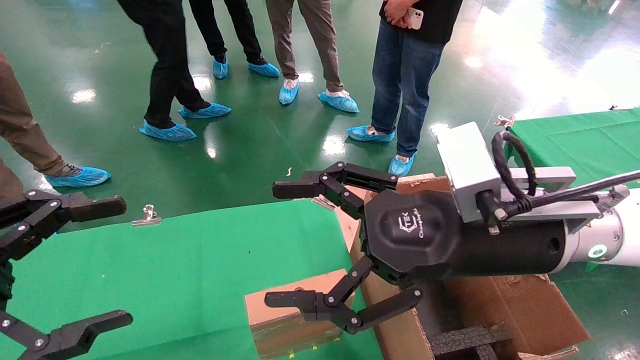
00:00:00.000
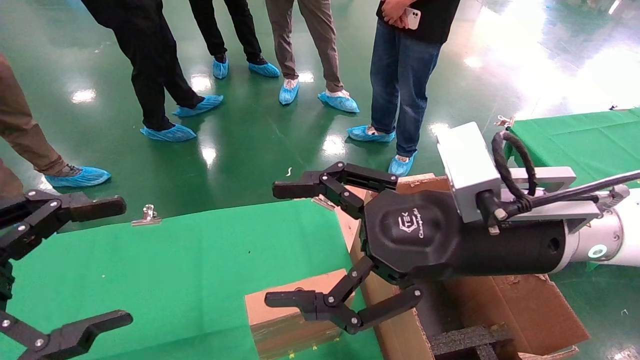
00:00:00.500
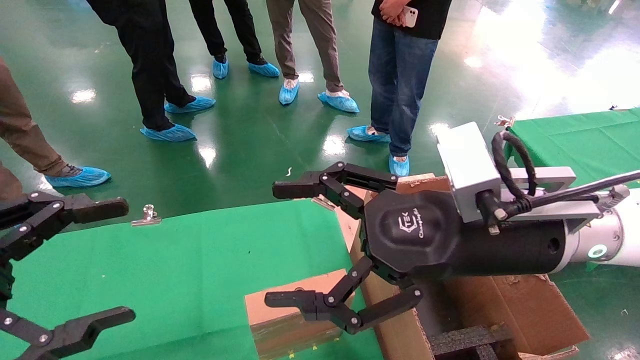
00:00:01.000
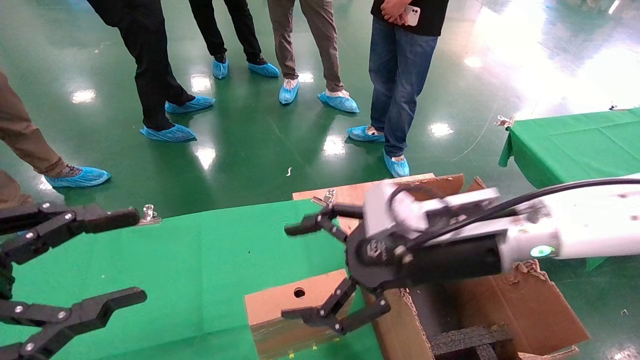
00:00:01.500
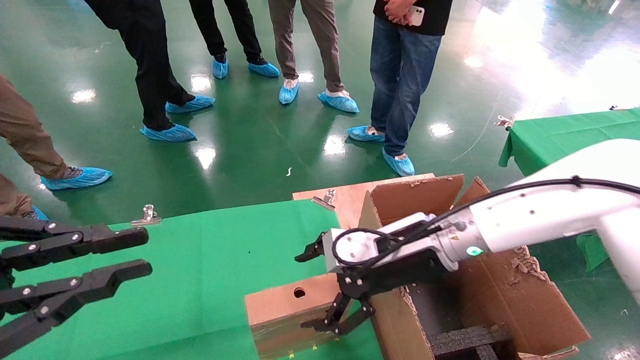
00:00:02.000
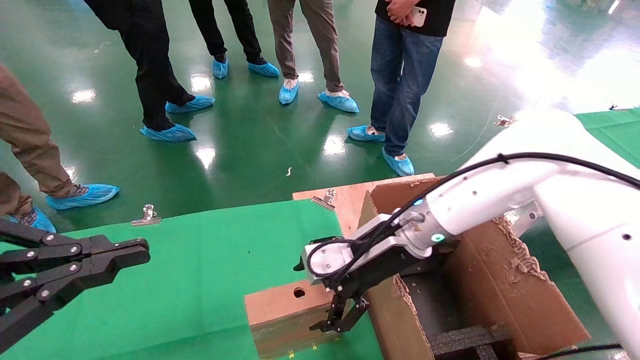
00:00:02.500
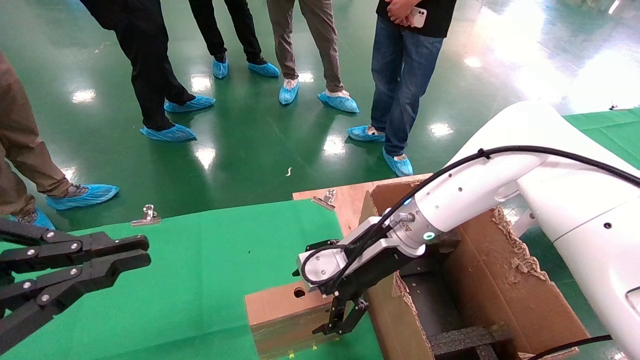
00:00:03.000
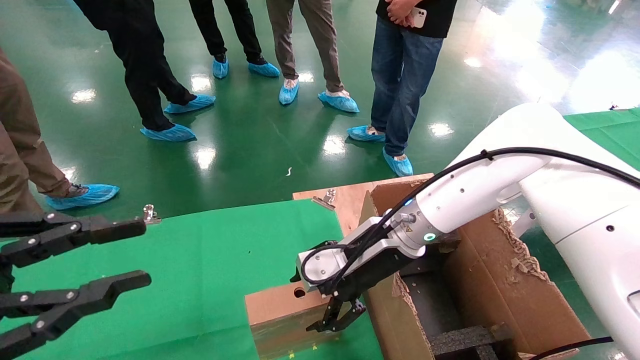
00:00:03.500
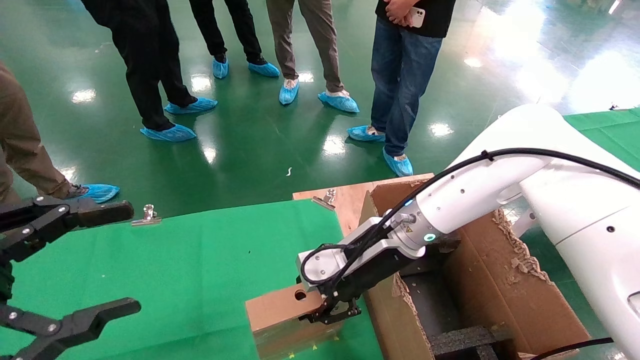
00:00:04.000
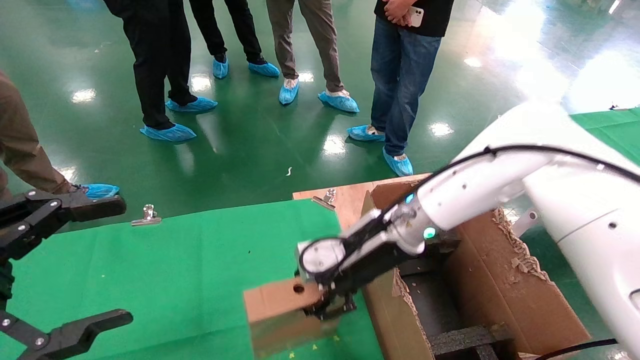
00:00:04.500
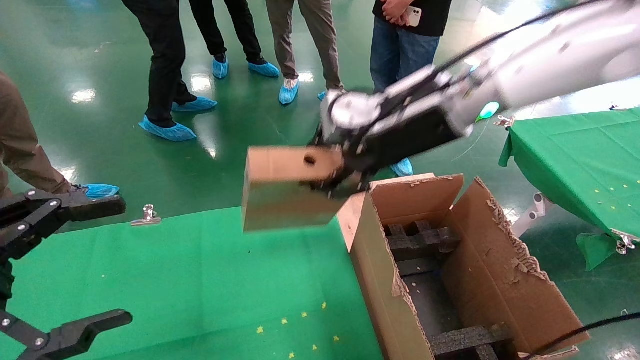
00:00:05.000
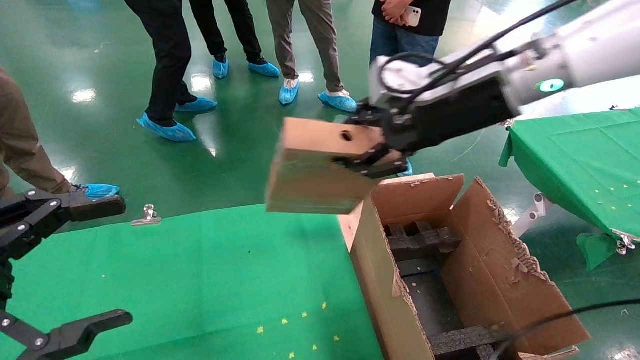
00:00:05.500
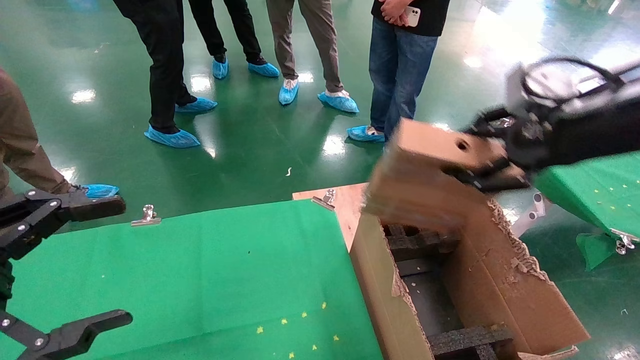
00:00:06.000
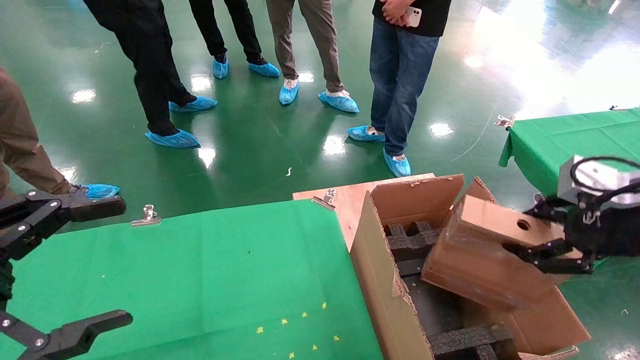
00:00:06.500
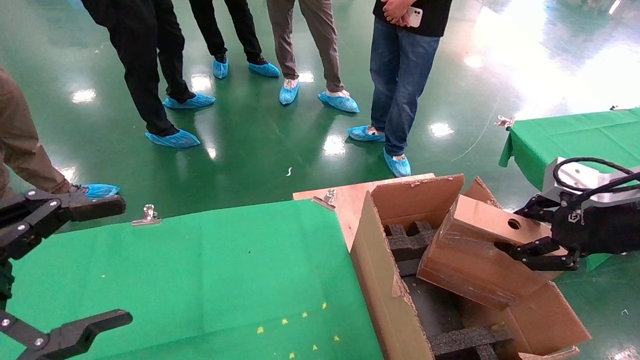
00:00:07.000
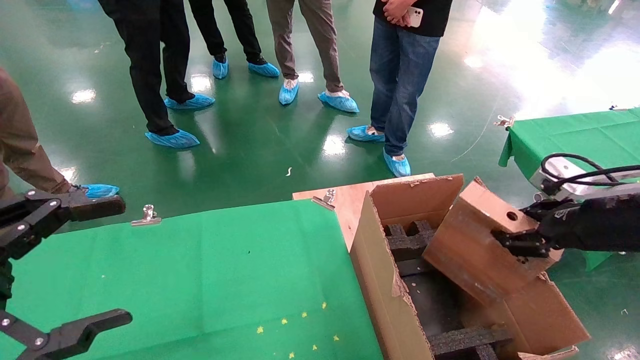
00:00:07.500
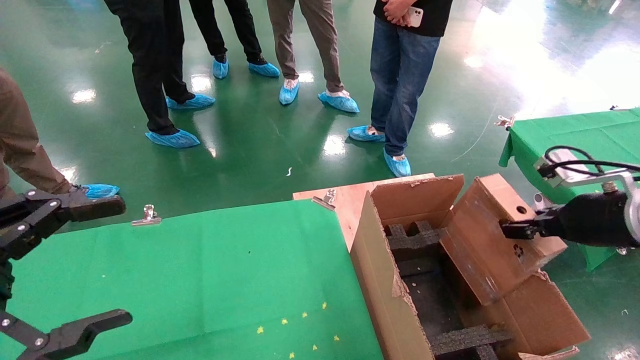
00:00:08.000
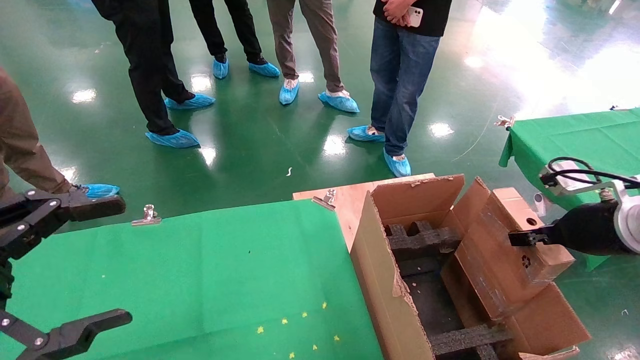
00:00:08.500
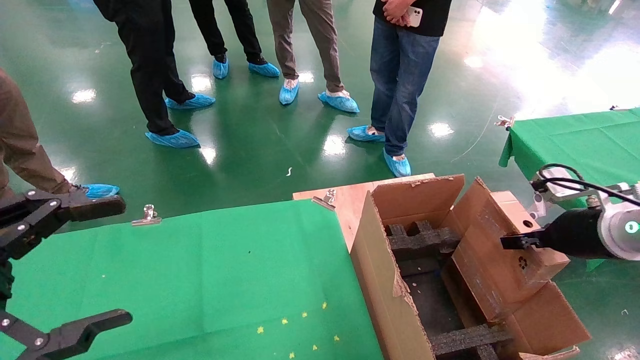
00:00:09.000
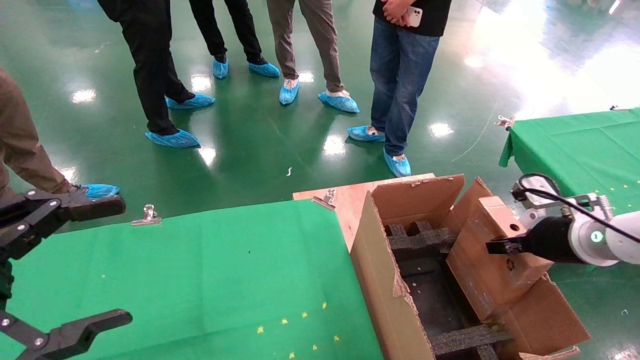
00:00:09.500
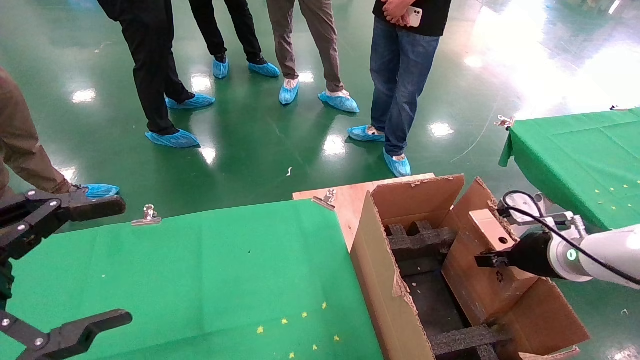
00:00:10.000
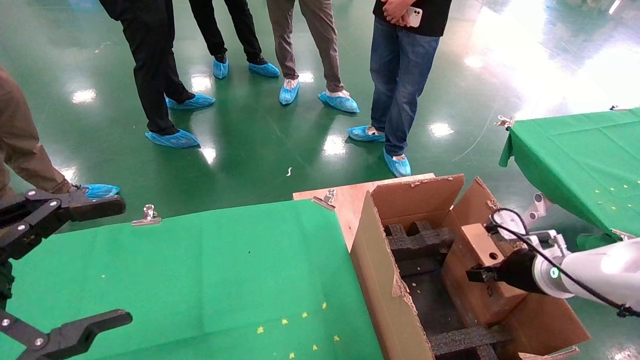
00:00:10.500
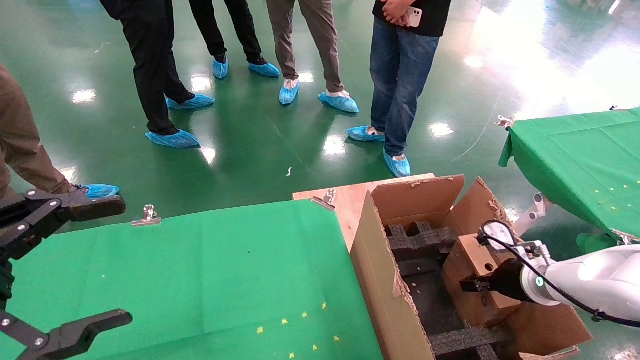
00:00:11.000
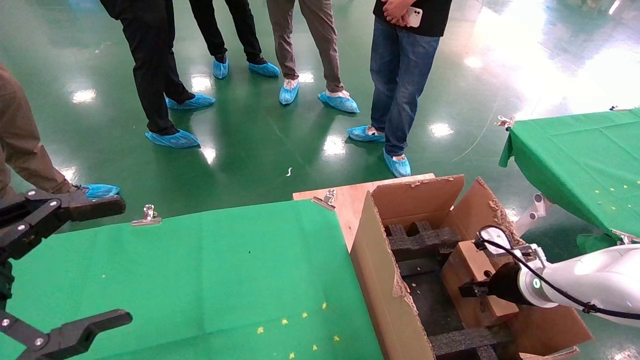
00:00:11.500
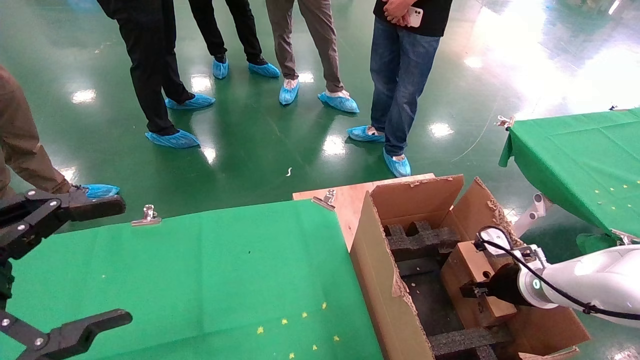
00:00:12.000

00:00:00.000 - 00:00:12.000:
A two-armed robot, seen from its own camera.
Task of the whole recording: using a robotic arm to pick up a cardboard box and palace it the carton.
Step, 00:00:01.500 - 00:00:04.000: Pick up the mouse and the power cord paper box.
00:00:00.000 - 00:00:02.000: The left gripper closes its fingers; the right gripper heads forward and downward, covering some 15 cm.
00:00:02.000 - 00:00:04.000: The left gripper opens its fingers. Meanwhile the right gripper closes.
00:00:04.000 - 00:00:06.000: The right gripper travels to the right, upward and backward by approximately 30 cm.
00:00:06.000 - 00:00:08.000: The right gripper goes about 15 cm downward and to the right.
00:00:08.000 - 00:00:10.000: The right gripper goes some 10 cm downward and forward.
00:00:10.000 - 00:00:12.000: The right gripper moves downward, some 10 cm.

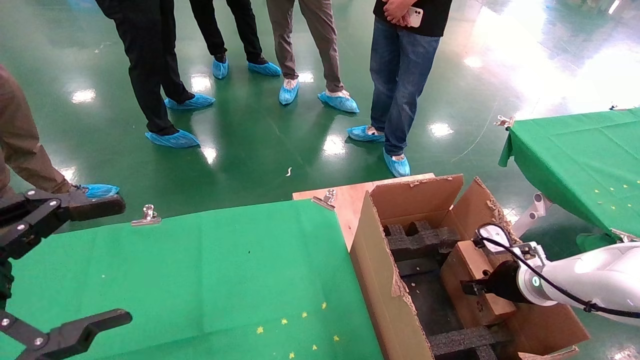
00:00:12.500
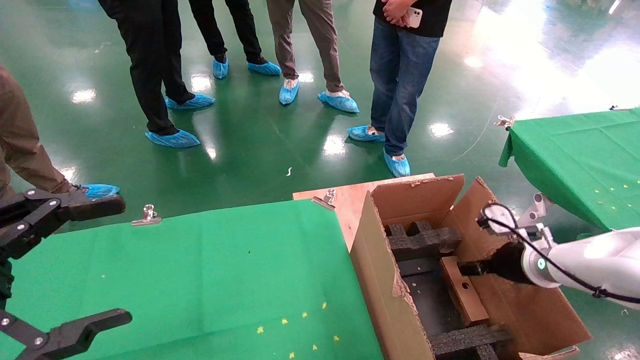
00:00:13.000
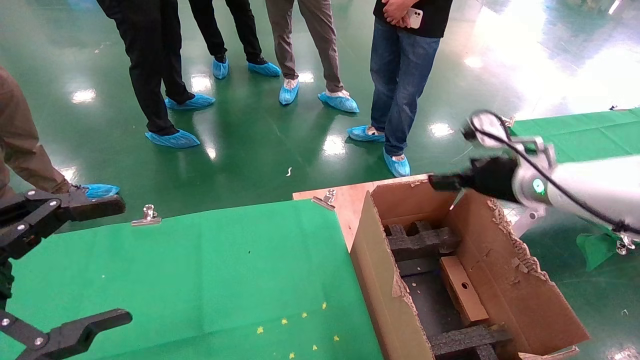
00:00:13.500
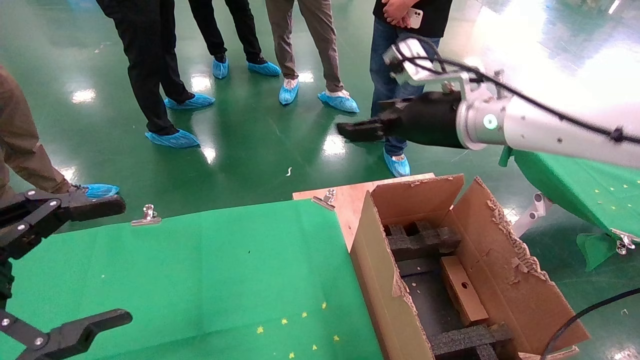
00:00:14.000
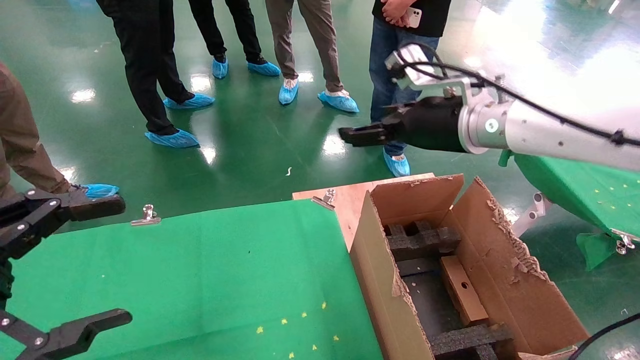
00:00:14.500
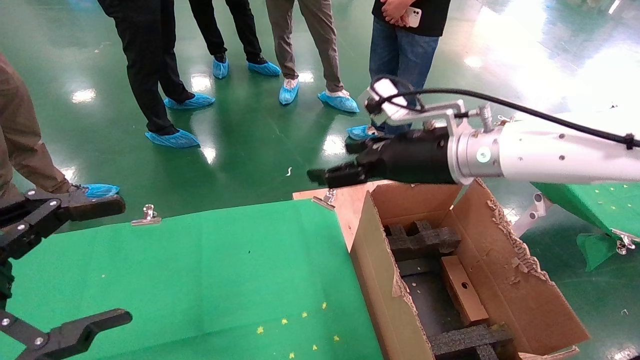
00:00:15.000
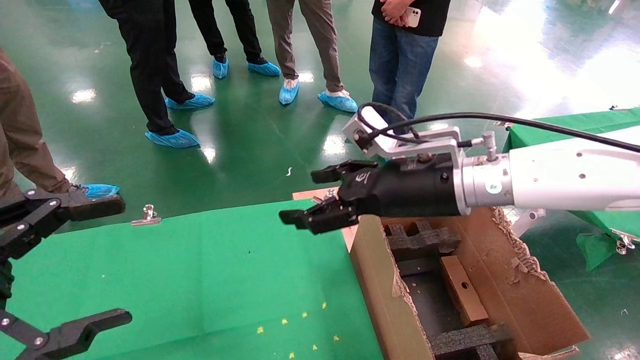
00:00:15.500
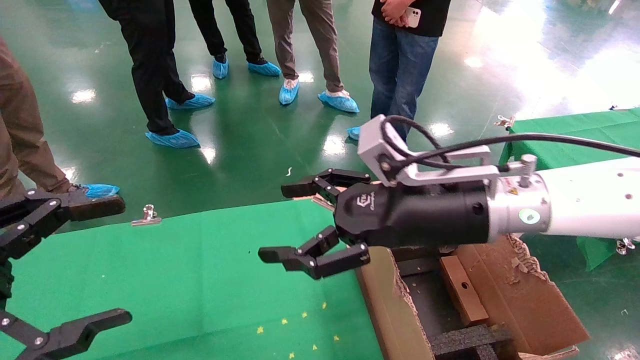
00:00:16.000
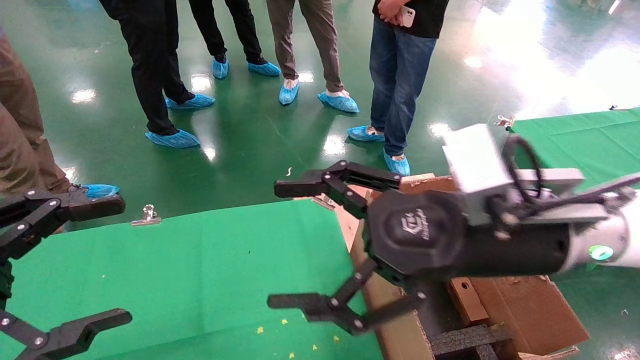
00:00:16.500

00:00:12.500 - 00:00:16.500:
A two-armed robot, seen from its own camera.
Task of the whole recording: using a robotic arm to pick up a cardboard box and palace it the carton.
00:00:12.500 - 00:00:14.500: The right gripper moves upward and to the left, roughly 30 cm, and opens up.
00:00:14.500 - 00:00:16.500: The right gripper shifts some 15 cm backward.

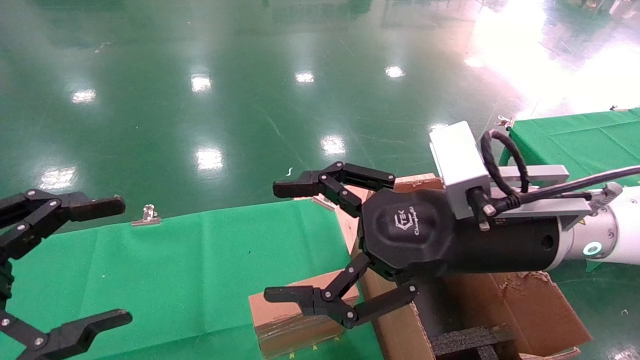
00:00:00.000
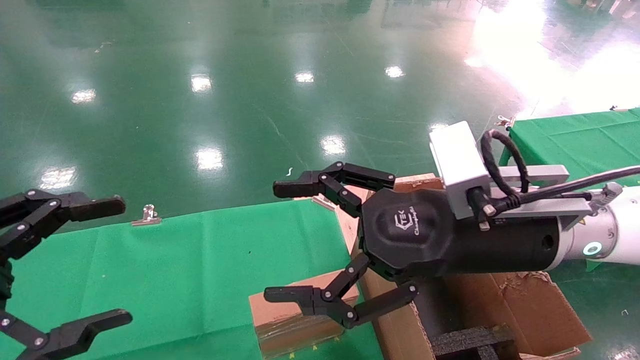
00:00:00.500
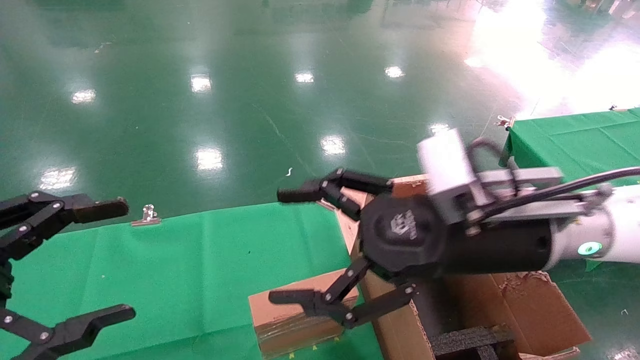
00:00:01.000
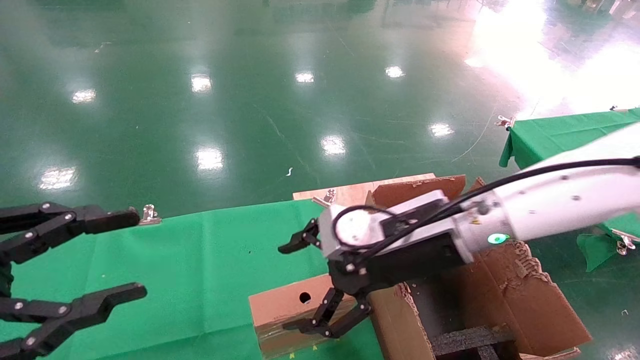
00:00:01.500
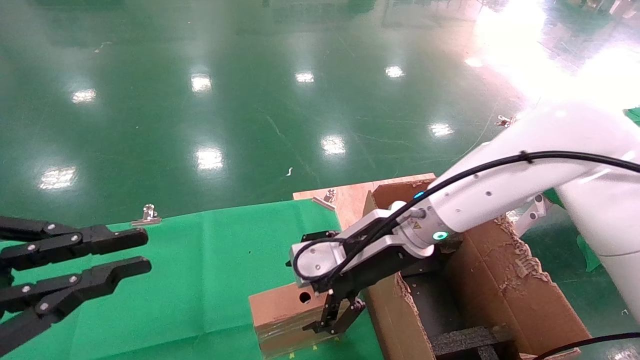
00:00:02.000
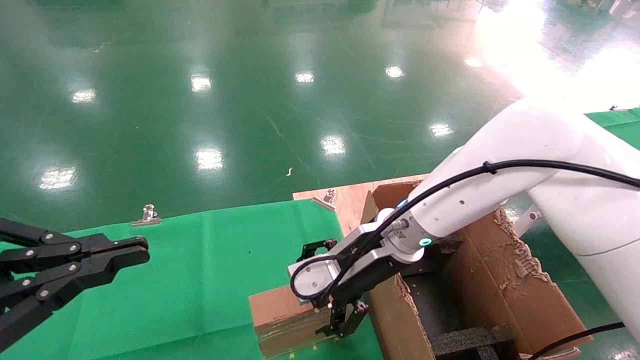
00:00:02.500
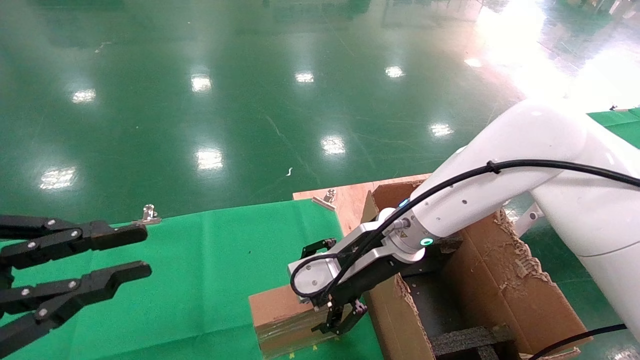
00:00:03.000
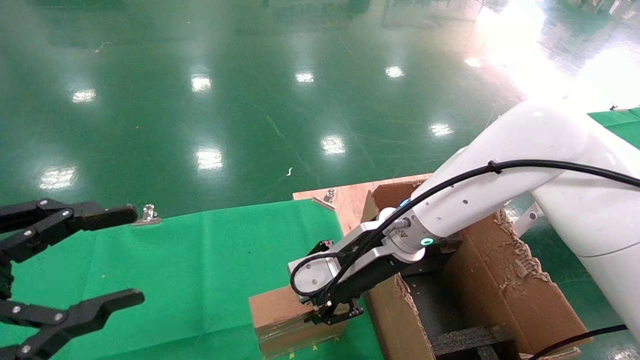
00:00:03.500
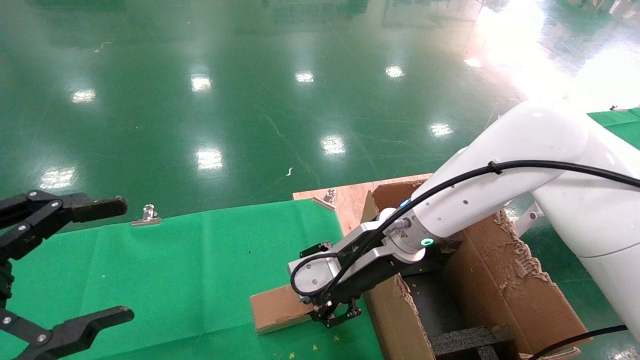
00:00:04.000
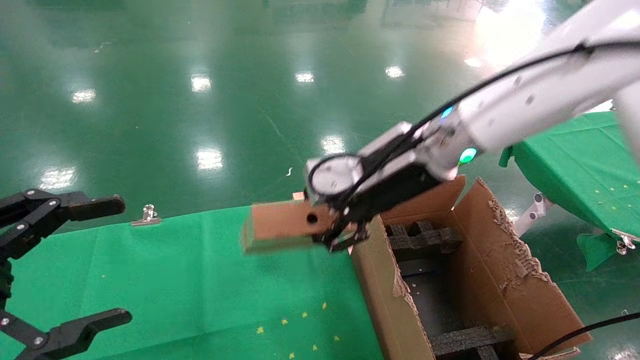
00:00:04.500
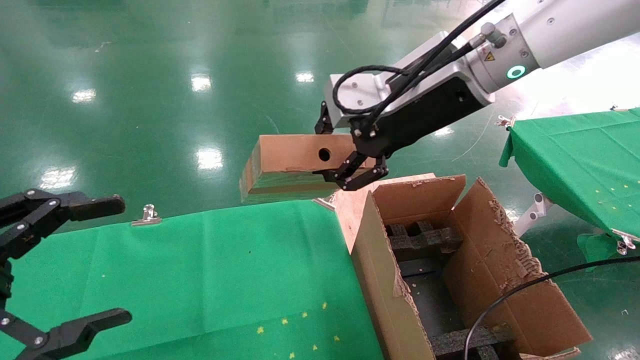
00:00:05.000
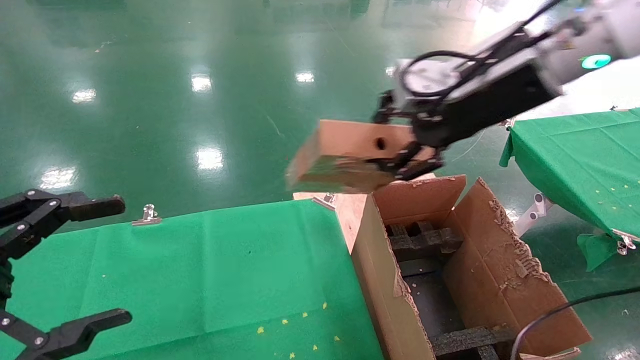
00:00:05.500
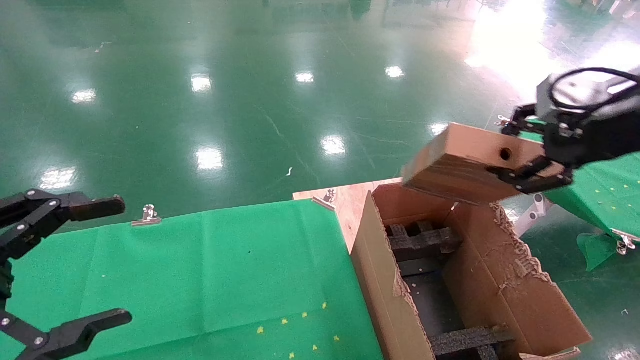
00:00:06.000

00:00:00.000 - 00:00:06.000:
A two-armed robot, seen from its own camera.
Task of the whole recording: using a robotic arm to pick up a cardboard box and palace it the carton.
Step, 00:00:01.500 - 00:00:03.500: Pick up the mouse and the power cord paper box.
00:00:00.000 - 00:00:02.000: The right gripper travels forward, to the left and downward by approximately 15 cm, while the left gripper closes up.
00:00:02.000 - 00:00:04.000: The left gripper opens, while the right gripper closes.
00:00:04.000 - 00:00:06.000: The right gripper shifts about 30 cm to the right and upward.
